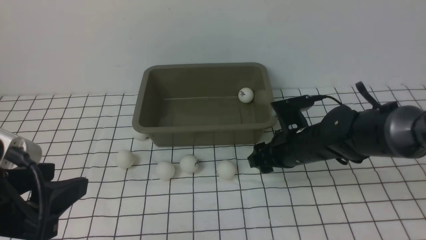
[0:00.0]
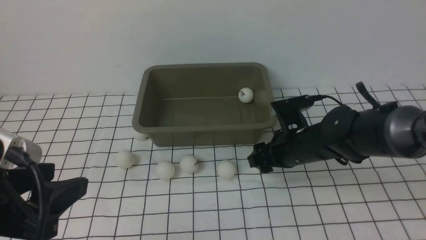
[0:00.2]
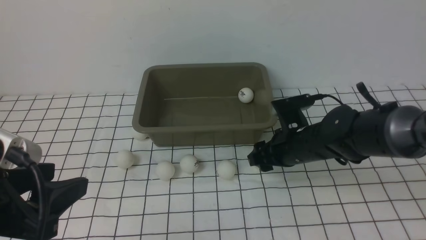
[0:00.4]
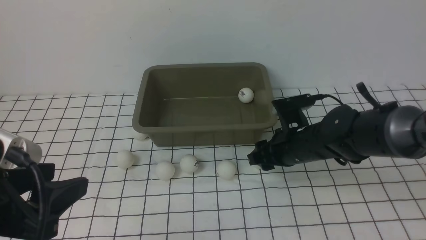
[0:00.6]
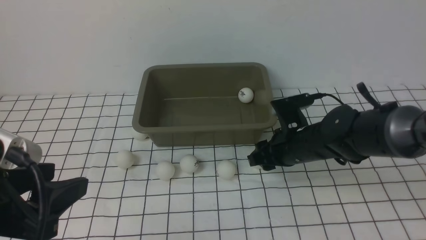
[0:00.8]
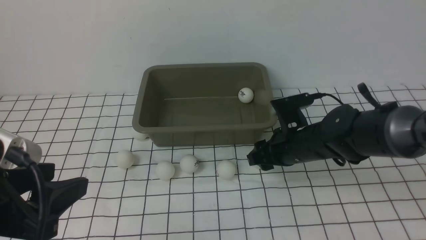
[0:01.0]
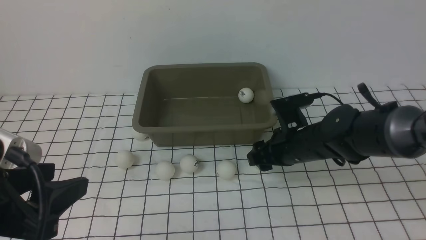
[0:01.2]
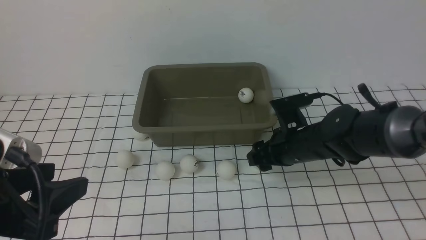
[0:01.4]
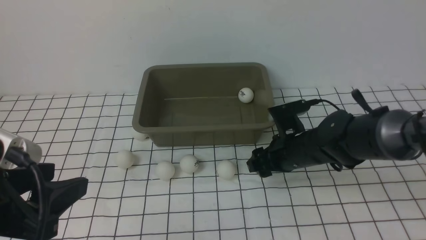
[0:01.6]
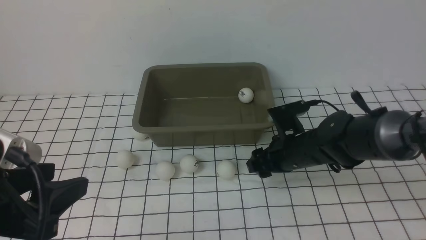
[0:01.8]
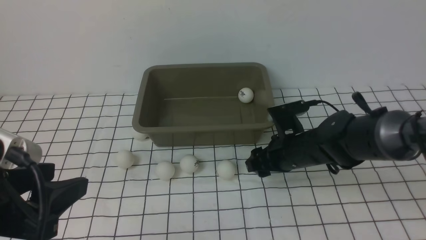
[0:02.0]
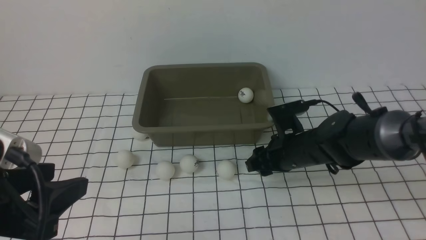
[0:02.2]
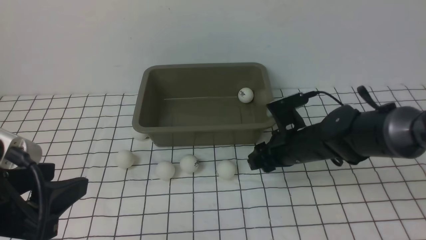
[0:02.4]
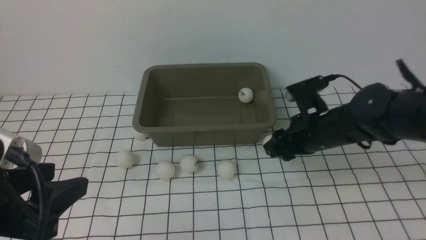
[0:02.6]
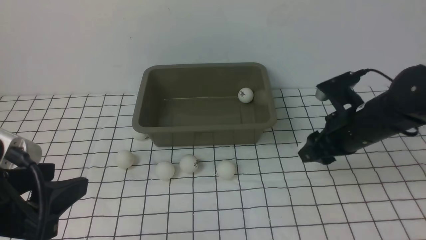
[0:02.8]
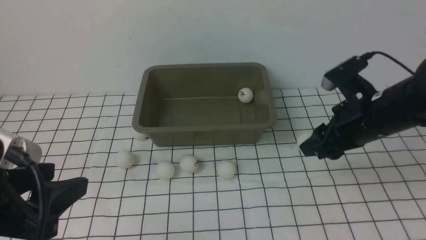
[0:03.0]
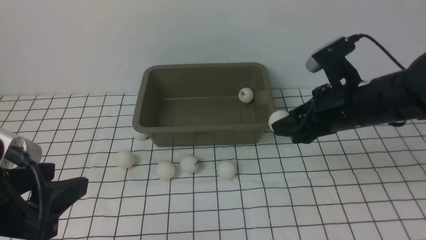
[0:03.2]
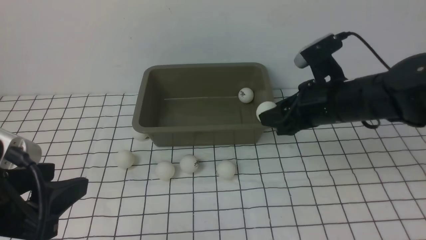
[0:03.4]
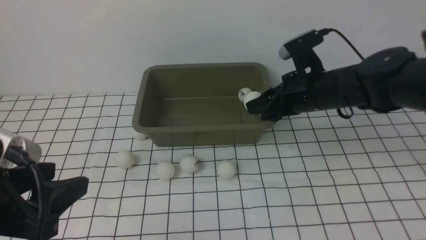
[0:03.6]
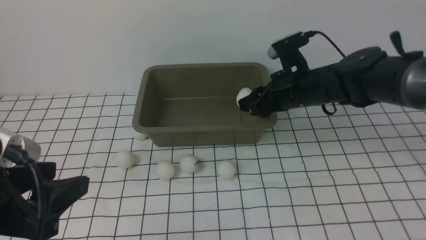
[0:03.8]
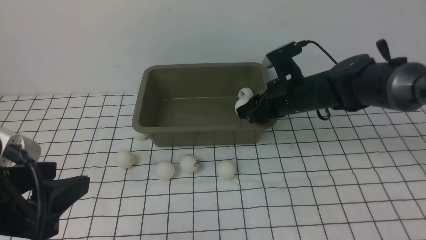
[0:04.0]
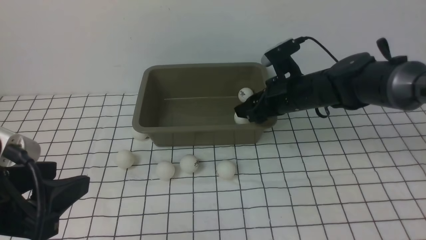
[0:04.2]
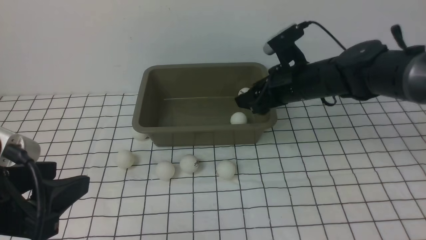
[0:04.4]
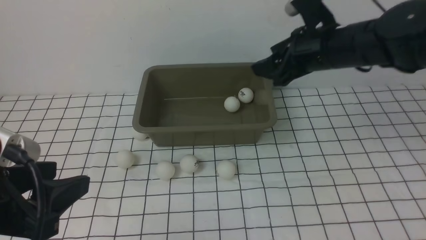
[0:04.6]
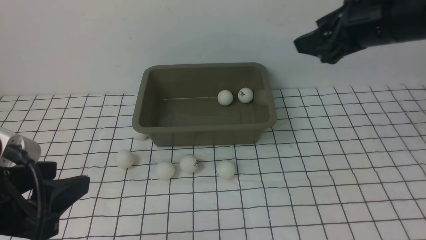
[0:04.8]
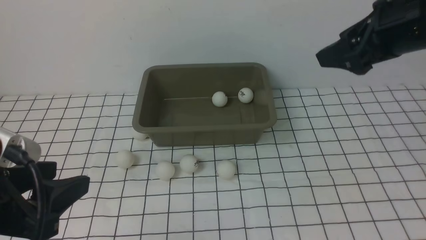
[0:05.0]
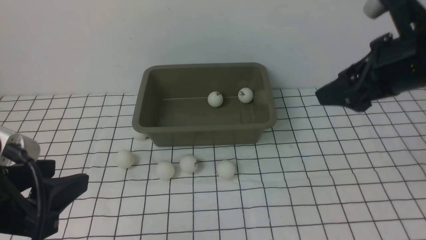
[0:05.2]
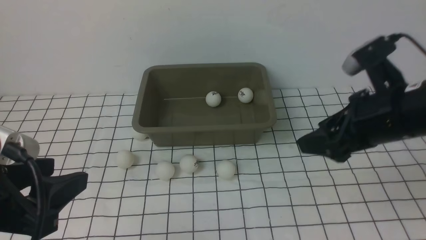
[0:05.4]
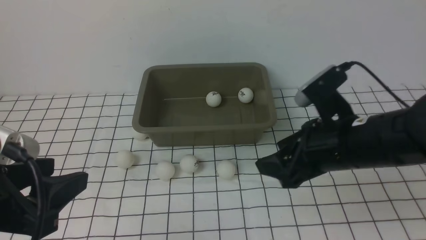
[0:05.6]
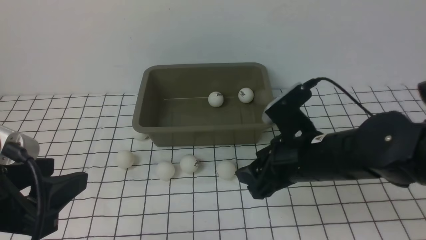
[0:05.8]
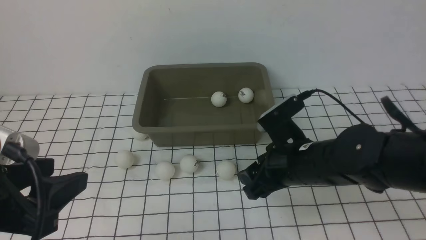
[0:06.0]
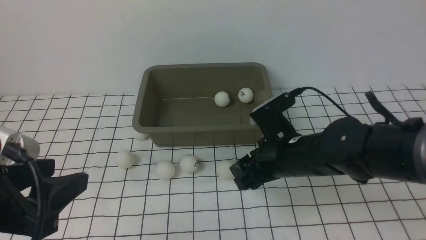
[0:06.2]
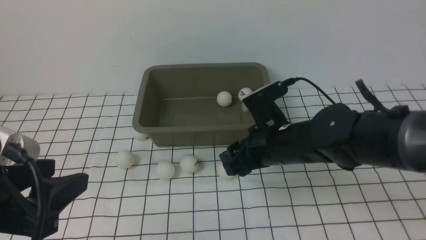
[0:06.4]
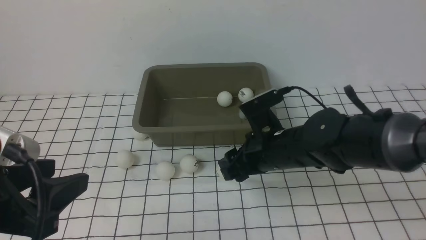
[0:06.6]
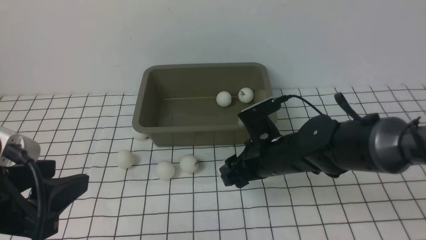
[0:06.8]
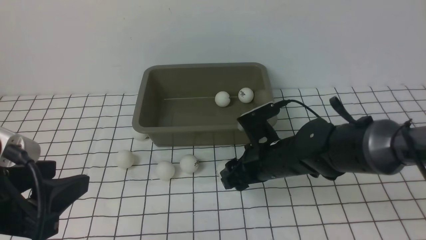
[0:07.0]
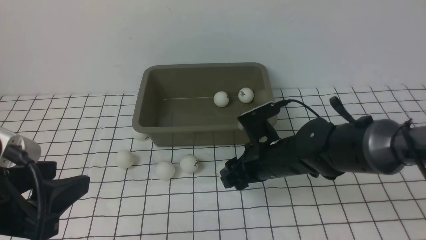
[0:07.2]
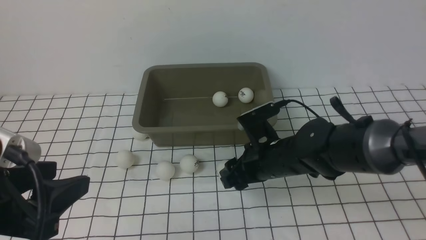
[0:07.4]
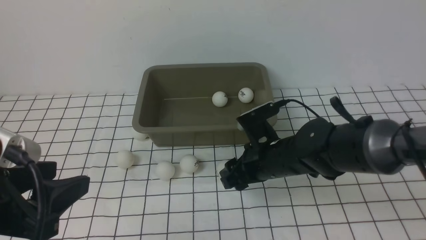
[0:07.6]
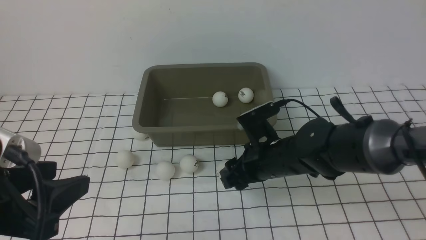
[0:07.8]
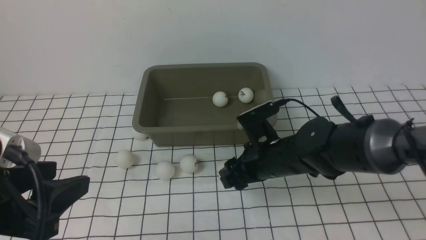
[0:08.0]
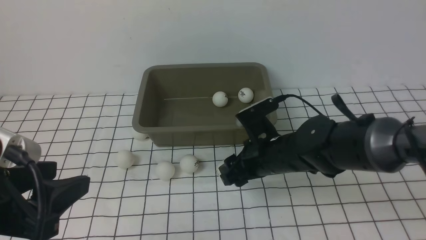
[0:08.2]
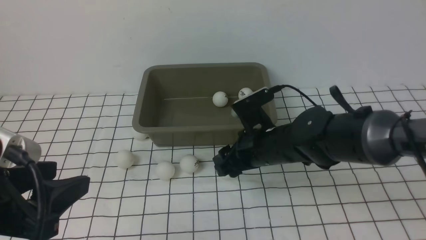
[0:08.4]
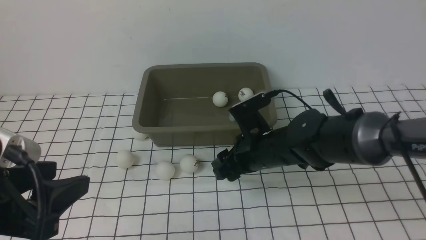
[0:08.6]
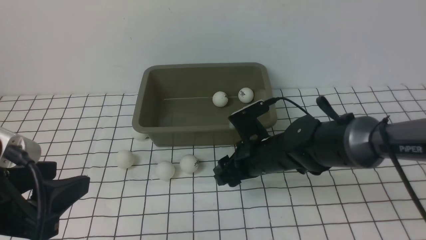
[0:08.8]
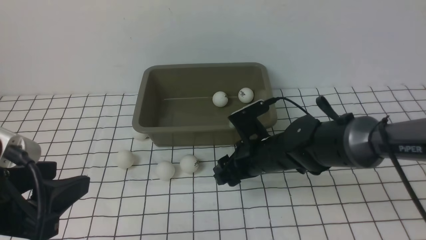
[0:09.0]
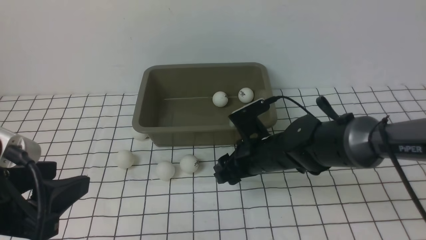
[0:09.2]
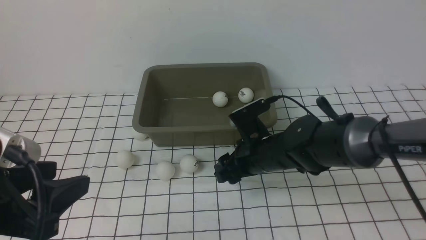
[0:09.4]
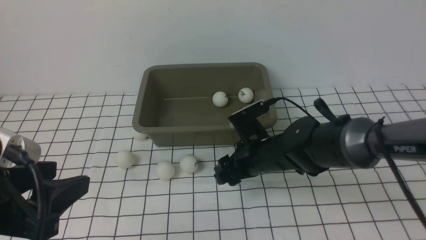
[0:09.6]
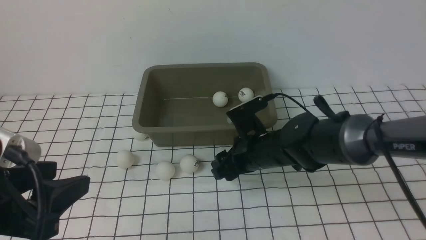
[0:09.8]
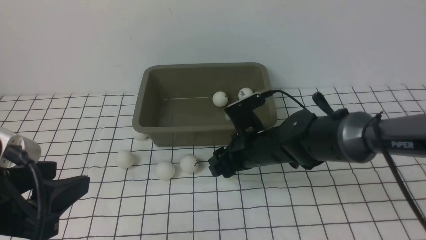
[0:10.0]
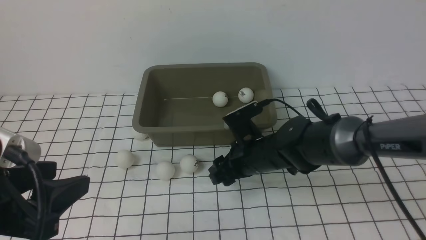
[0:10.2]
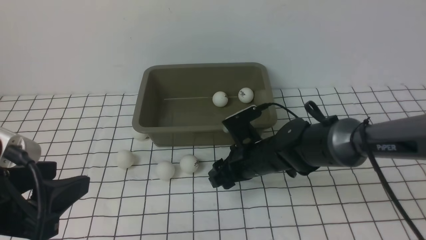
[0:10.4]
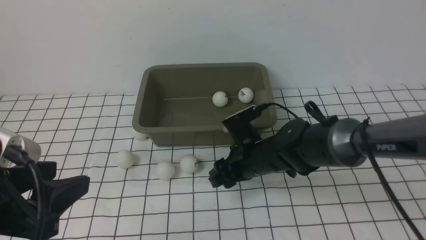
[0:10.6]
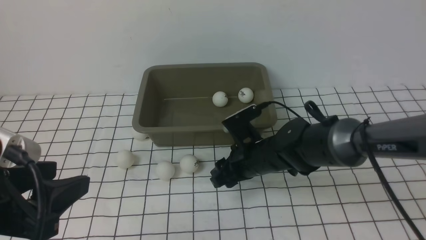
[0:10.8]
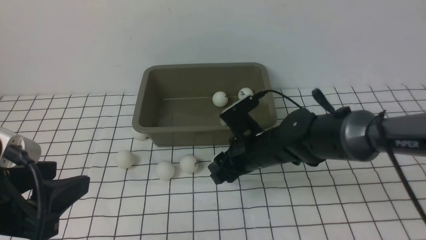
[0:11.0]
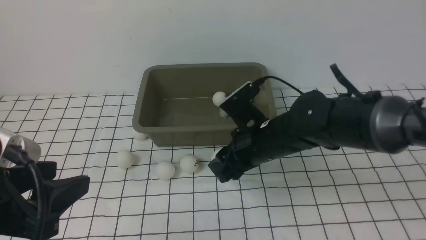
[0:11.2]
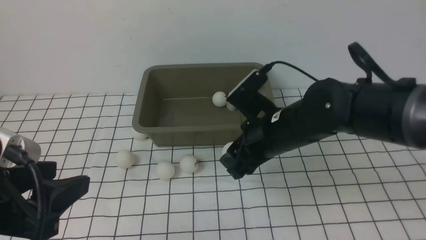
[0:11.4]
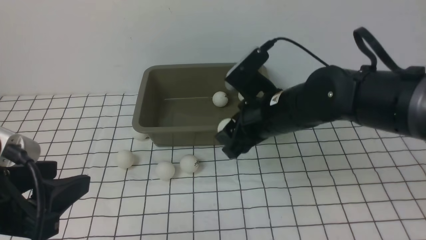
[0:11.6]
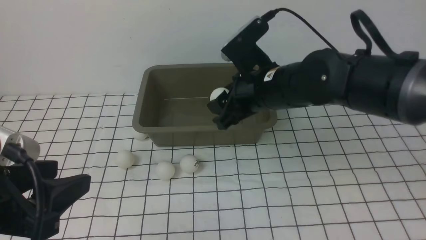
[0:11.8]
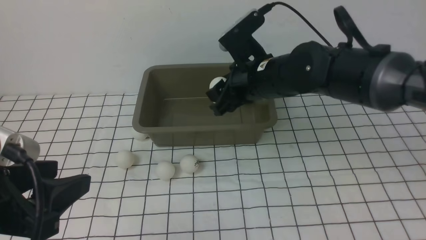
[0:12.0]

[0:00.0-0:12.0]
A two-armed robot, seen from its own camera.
Step, 0:00.0 to 0:02.4: use the right arm to clamp the table tennis ball closest to it.
Step, 0:02.8 to 0:04.2: use the right arm to put the table tennis ball into the box.
Step, 0:04.6 to 0:11.2: use the right arm to clamp the table tennis ball closest to it.
0:00.0 to 0:01.6: Neither gripper changes place.
0:01.6 to 0:03.0: The right gripper goes approximately 10 cm upward and to the right, and closes.
0:03.0 to 0:04.4: The right gripper is displaced forward and to the left by about 10 cm, and opens.
0:04.4 to 0:06.0: The right gripper shifts about 15 cm backward and downward.
0:06.0 to 0:07.6: The right gripper ends up roughly 5 cm from where it was.
0:07.6 to 0:10.4: The grippers move only a little.
0:10.4 to 0:12.0: The right gripper is displaced upward by approximately 15 cm.

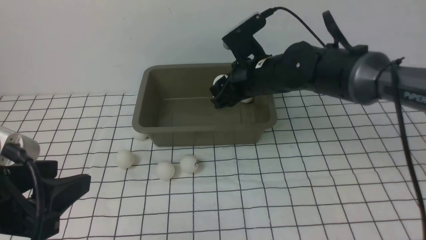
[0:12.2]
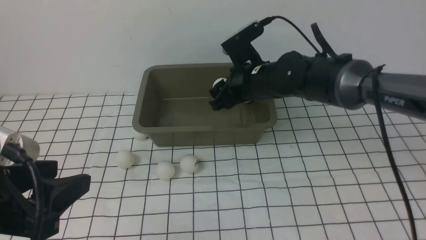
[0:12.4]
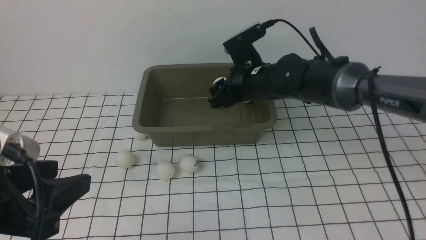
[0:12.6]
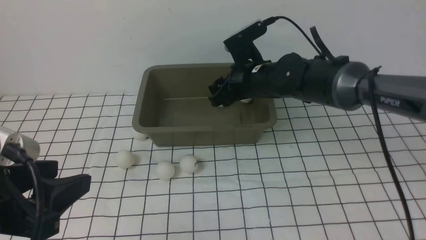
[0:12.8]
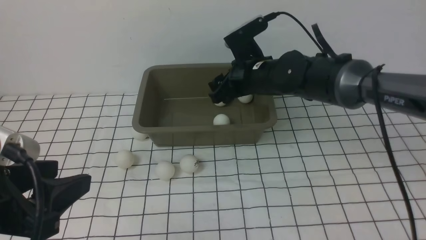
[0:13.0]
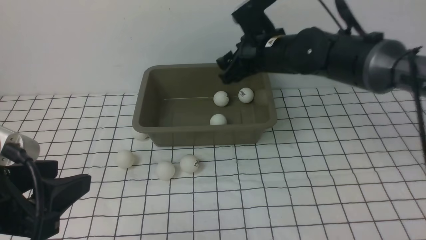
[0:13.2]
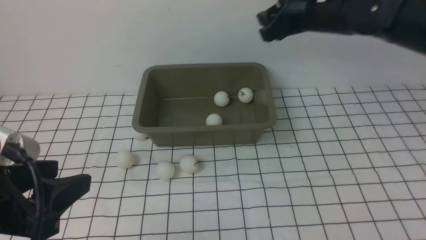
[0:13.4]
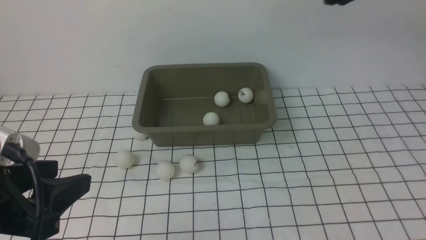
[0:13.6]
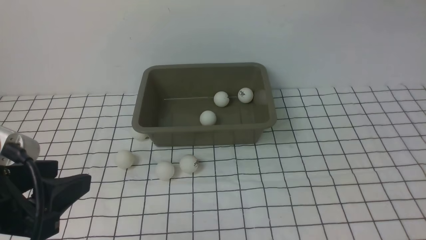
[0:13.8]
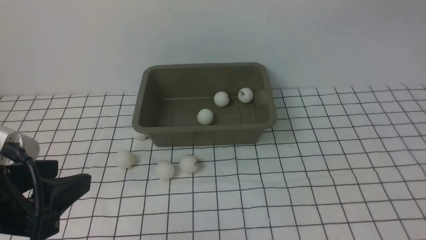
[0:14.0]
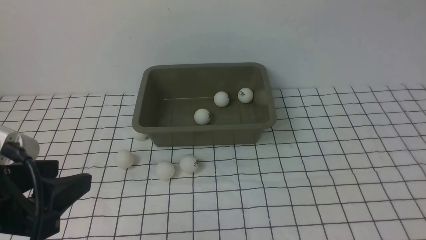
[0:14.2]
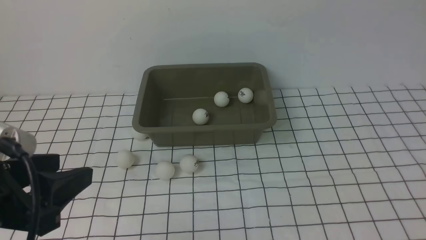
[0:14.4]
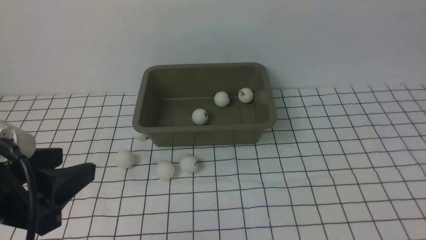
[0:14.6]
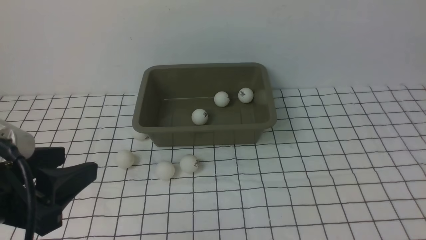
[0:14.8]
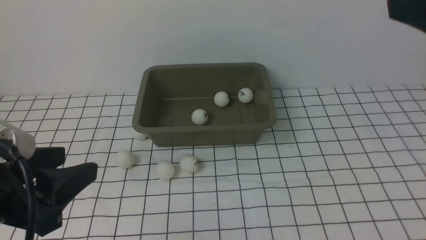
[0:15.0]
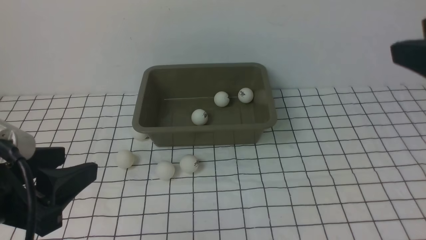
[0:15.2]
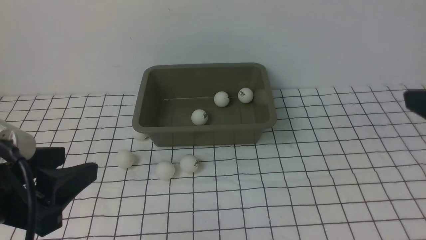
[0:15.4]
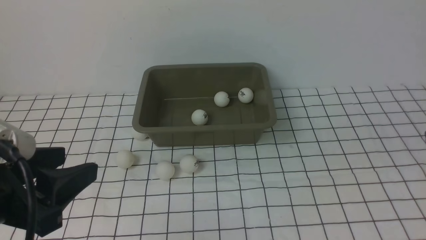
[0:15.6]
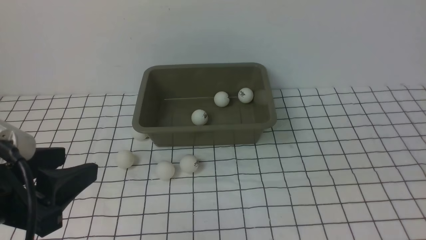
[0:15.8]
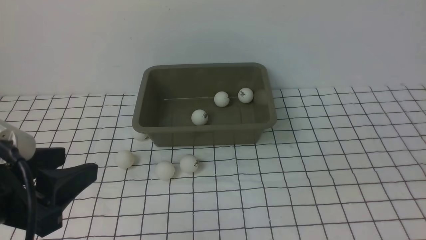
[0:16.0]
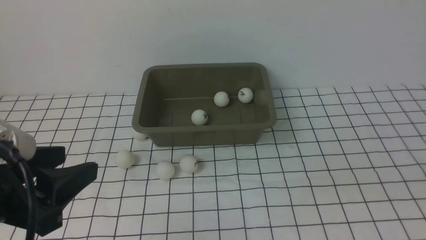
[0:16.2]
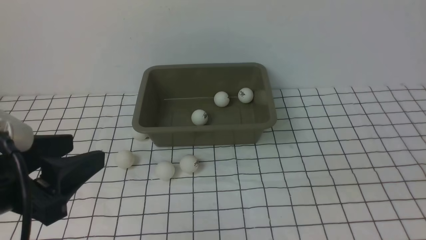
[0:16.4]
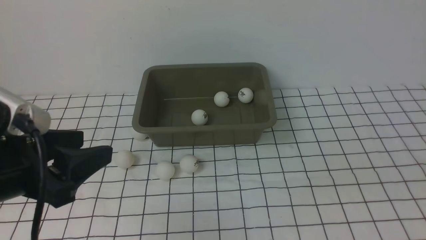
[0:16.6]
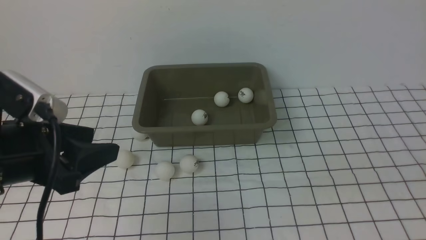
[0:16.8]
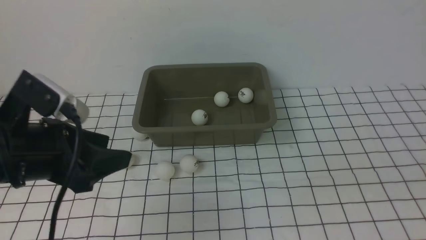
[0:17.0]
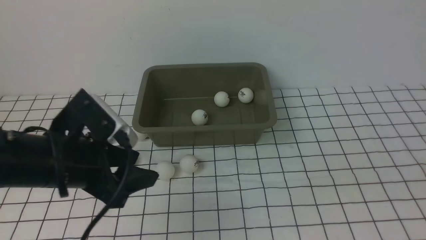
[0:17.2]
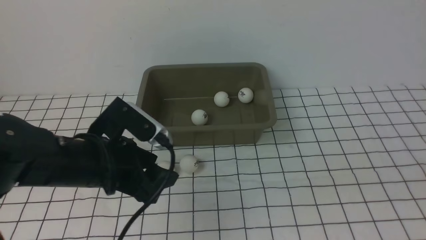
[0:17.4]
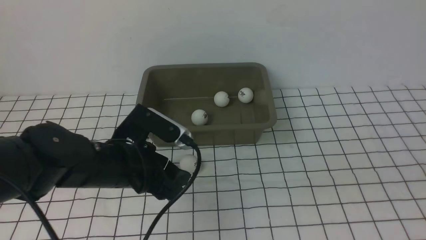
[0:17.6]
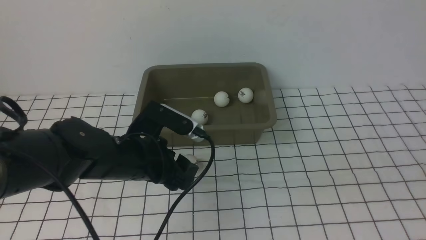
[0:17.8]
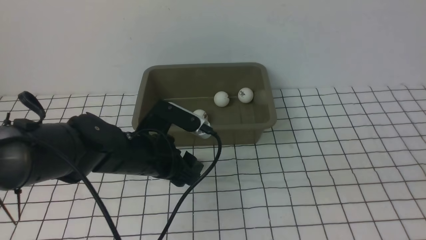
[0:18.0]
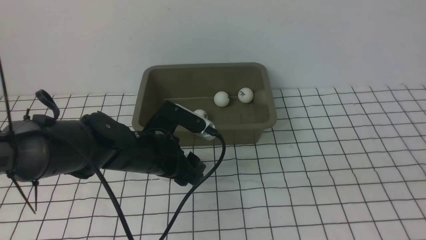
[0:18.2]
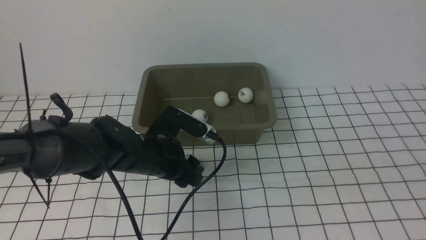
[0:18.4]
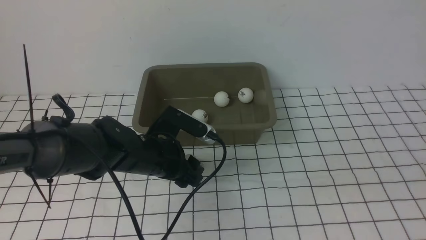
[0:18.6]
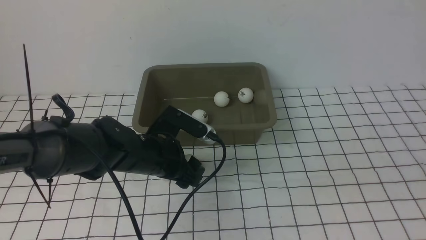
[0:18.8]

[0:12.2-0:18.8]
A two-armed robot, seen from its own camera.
Step, 0:12.2 to 0:13.0: use the right arm to put the table tennis ball into the box.
0:12.2 to 0:13.8: The right gripper moves to the right and upward, roughly 30 cm.
0:13.8 to 0:15.4: The right gripper shifts some 25 cm backward.
0:15.4 to 0:17.2: The left gripper is displaced forward, downward and to the right by about 15 cm. Meanwhile the right gripper is displaced downward by approximately 10 cm.
0:17.2 to 0:18.8: The left gripper moves downward, forward and to the right, approximately 10 cm.